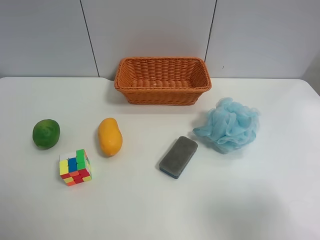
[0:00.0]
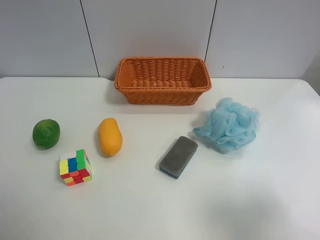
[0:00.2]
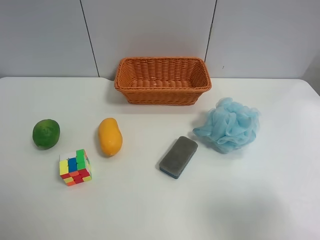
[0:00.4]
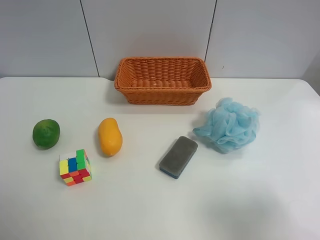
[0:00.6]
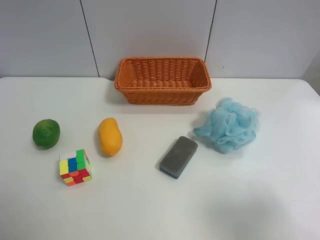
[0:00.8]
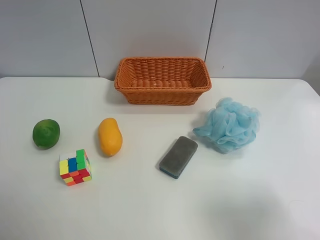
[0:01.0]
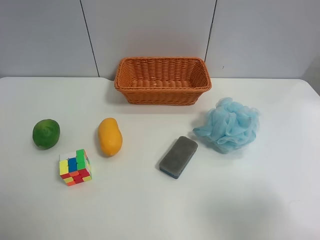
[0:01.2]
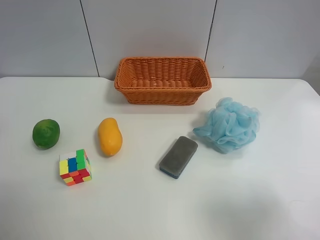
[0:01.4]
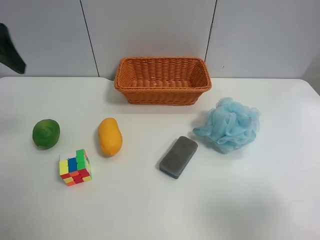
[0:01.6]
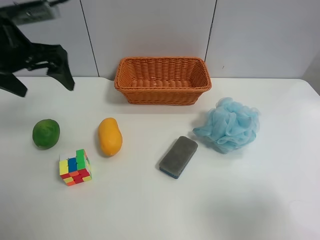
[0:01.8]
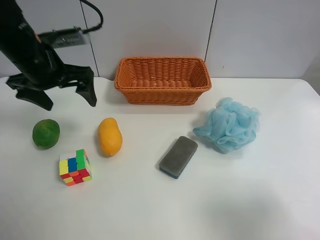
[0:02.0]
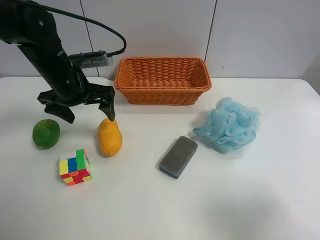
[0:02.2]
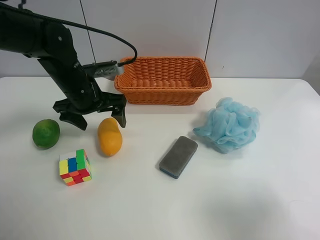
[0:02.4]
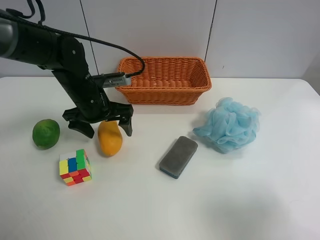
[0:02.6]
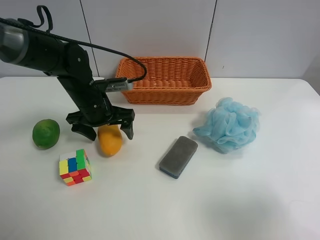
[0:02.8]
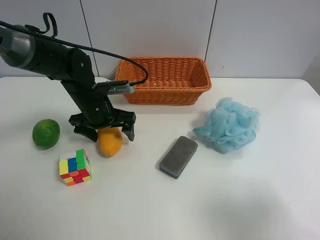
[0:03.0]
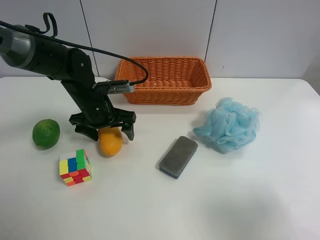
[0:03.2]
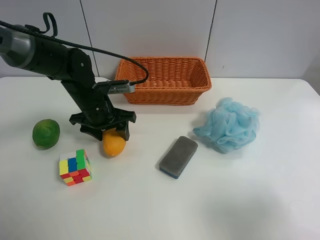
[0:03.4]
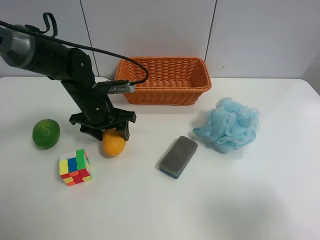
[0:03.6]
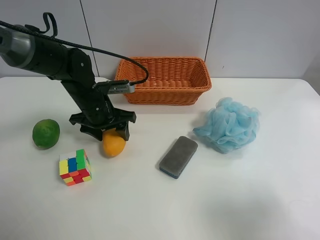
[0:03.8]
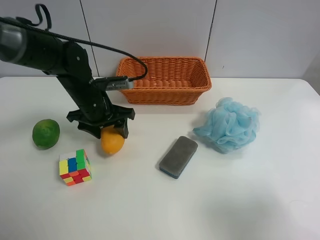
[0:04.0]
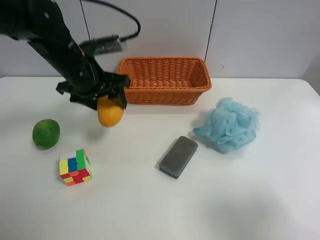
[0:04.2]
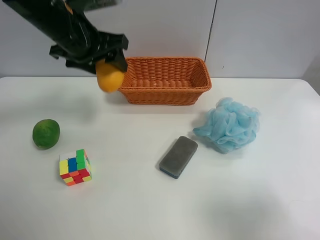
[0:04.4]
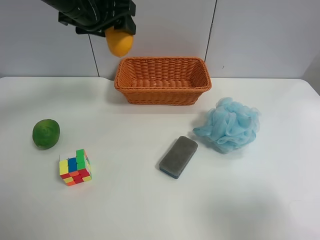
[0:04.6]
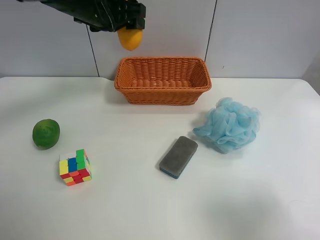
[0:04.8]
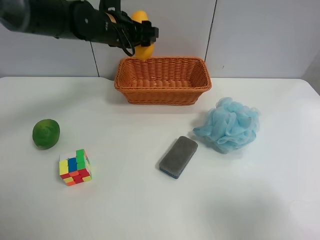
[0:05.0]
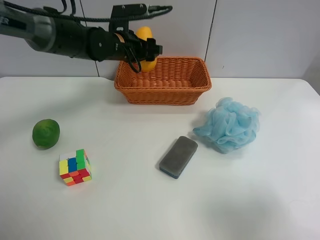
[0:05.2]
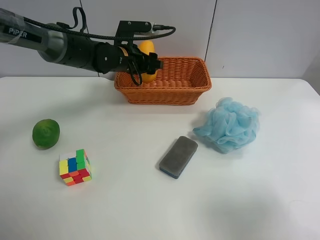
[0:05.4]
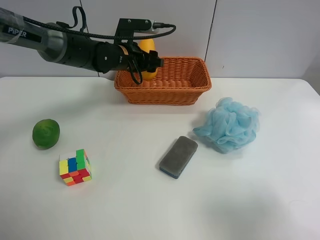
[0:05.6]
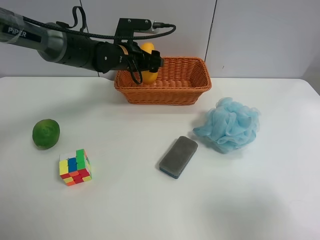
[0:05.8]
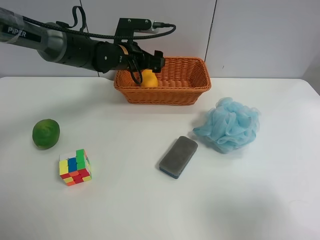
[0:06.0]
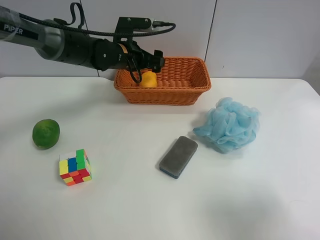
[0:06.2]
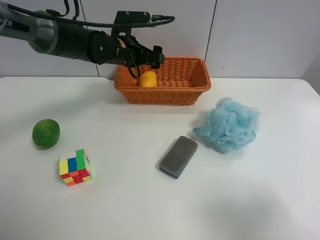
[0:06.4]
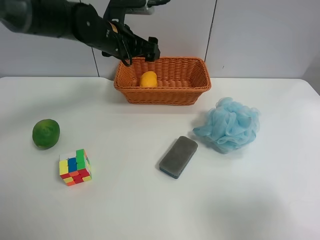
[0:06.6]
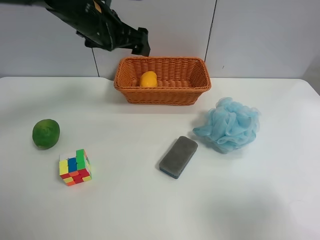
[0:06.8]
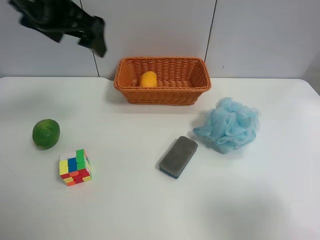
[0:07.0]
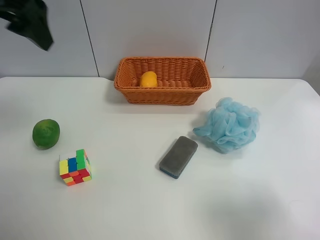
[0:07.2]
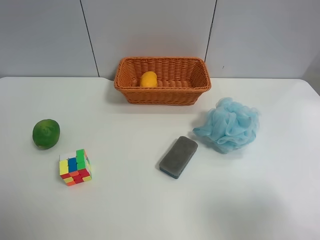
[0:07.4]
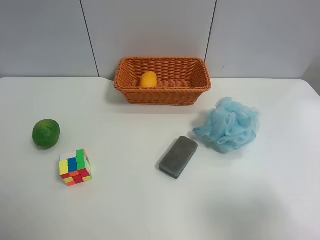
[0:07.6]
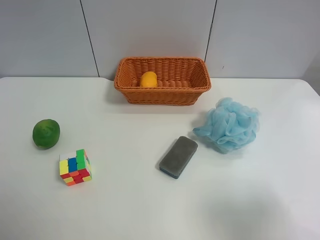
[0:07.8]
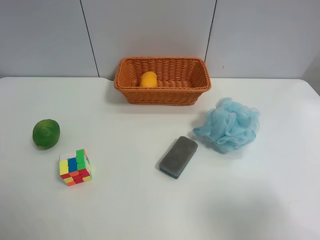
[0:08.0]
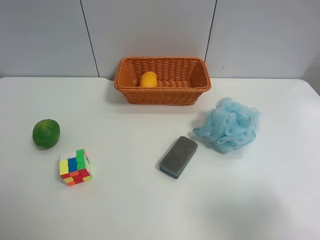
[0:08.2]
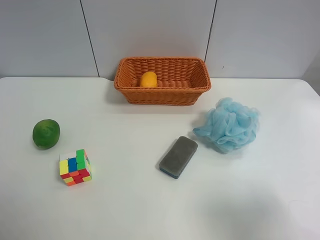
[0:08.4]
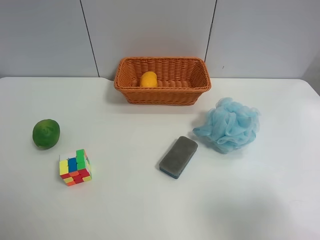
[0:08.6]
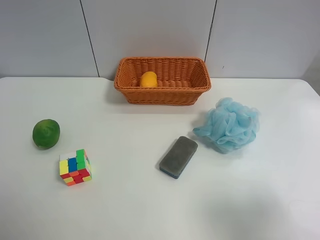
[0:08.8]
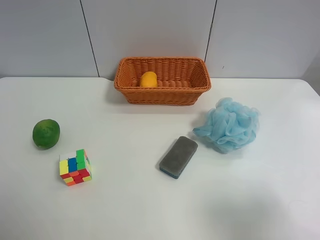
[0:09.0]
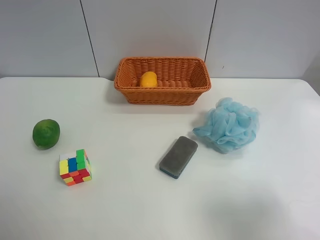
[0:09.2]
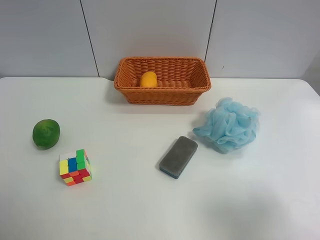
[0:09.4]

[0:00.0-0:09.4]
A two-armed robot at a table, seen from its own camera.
Task of the whole recording: Randomly grab green lemon or mangoes from the table and put them in a basket.
Step, 0:00.0 to 0:03.2: Grasp the mango with the left gripper.
Step, 0:03.4 to 0:06.6: Place the mango into the basket with the left gripper.
0:00.0 to 0:01.6: The left gripper is displaced forward by roughly 25 cm.
0:01.6 to 0:03.2: The left gripper moves downward and to the right, roughly 25 cm, and closes up.
0:03.2 to 0:04.8: The left gripper goes approximately 15 cm upward, and closes its fingers.
0:04.8 to 0:06.2: The left gripper heads downward, covering approximately 10 cm, and opens.
0:06.2 to 0:07.8: The left gripper travels backward, to the left and upward by approximately 50 cm.
